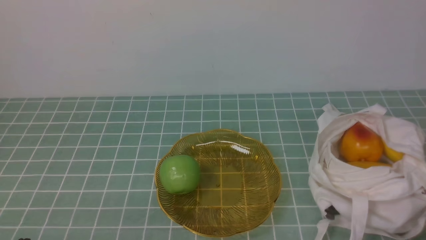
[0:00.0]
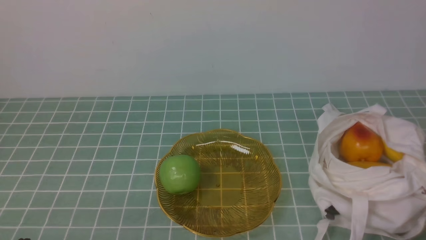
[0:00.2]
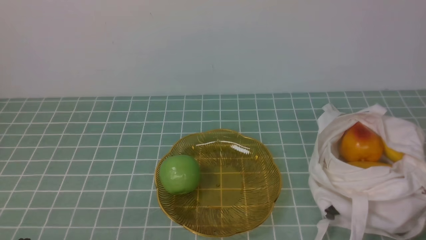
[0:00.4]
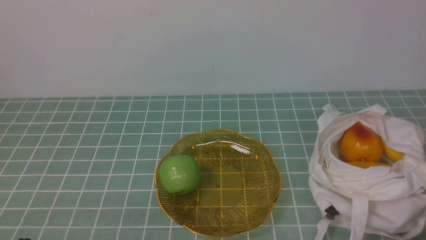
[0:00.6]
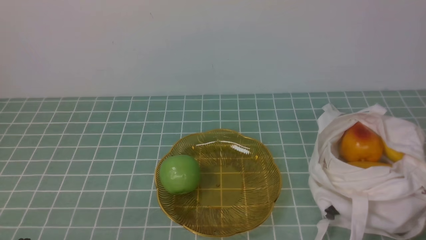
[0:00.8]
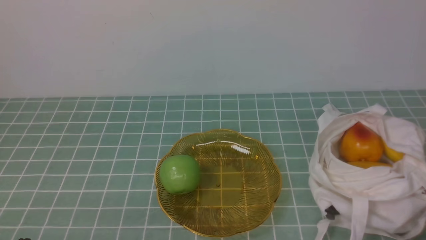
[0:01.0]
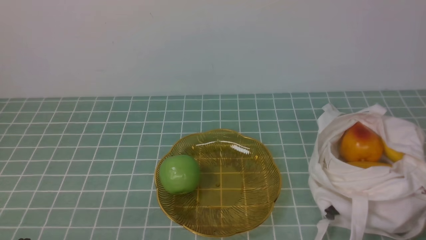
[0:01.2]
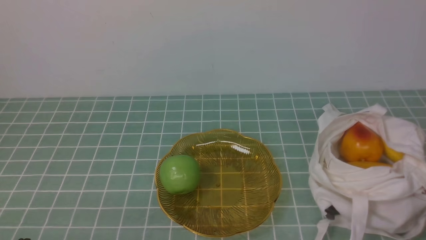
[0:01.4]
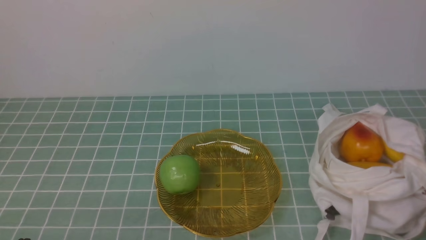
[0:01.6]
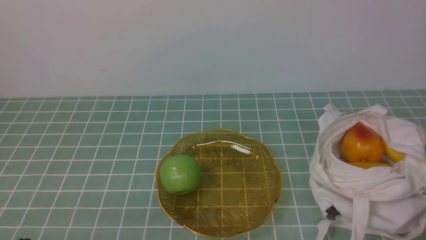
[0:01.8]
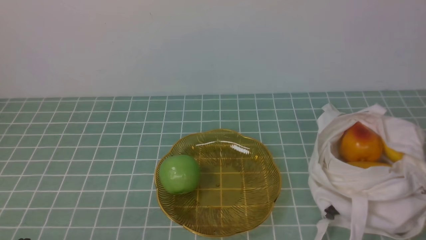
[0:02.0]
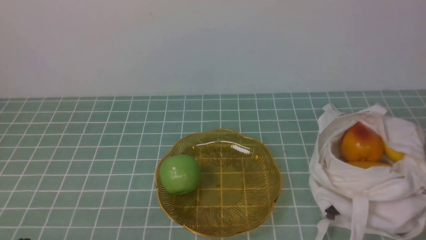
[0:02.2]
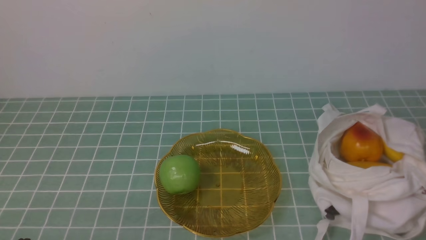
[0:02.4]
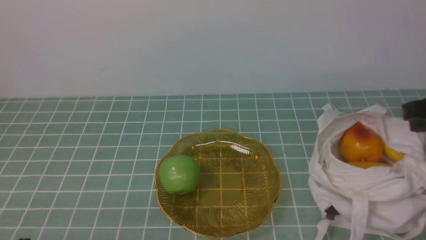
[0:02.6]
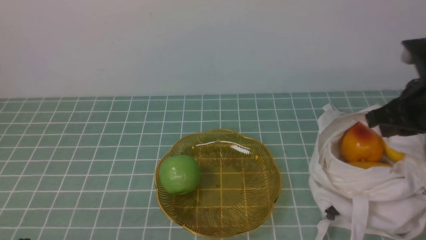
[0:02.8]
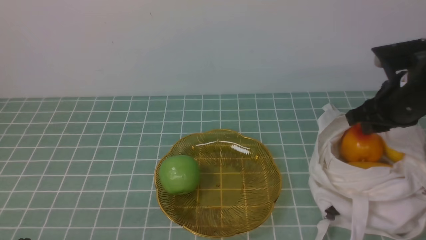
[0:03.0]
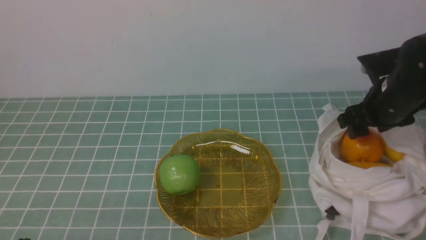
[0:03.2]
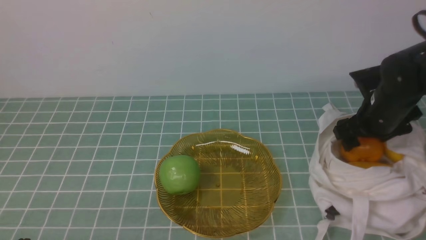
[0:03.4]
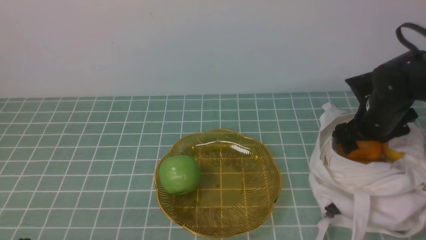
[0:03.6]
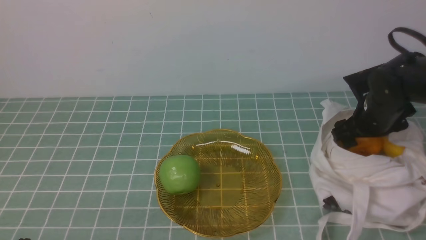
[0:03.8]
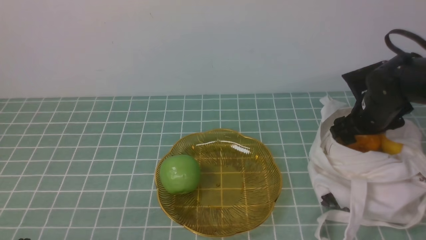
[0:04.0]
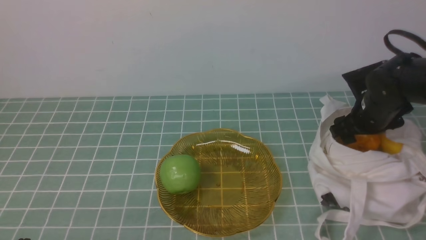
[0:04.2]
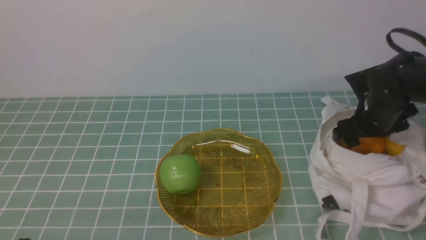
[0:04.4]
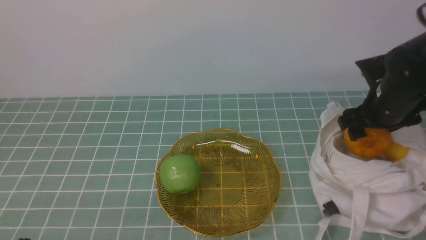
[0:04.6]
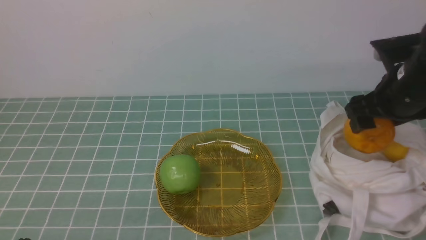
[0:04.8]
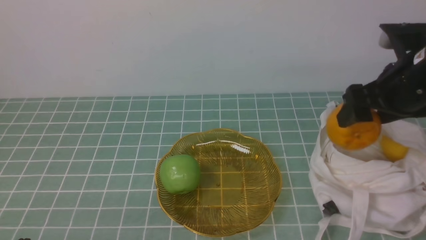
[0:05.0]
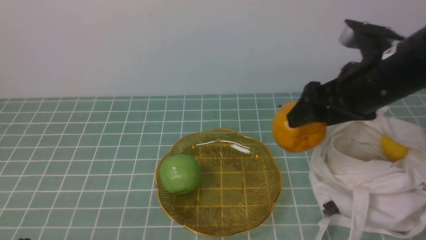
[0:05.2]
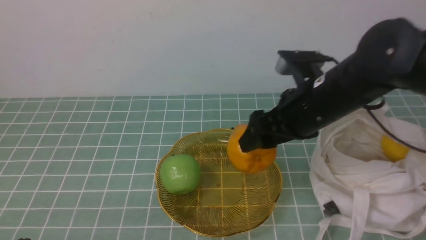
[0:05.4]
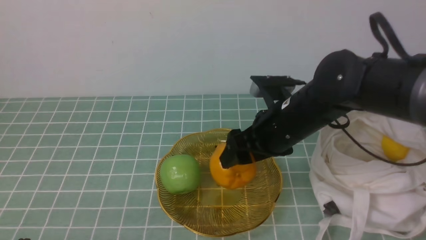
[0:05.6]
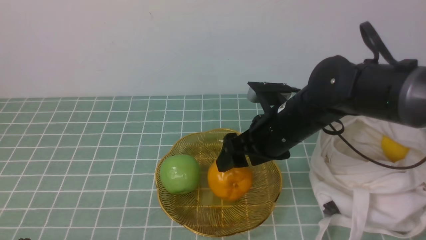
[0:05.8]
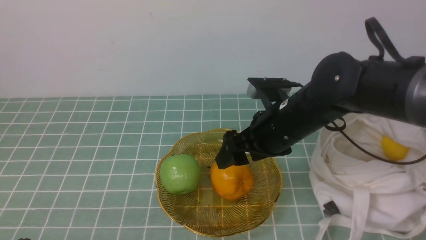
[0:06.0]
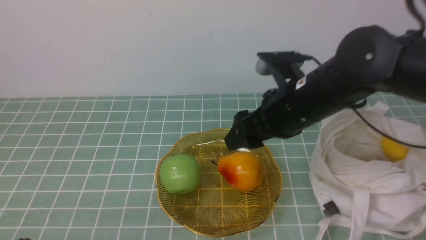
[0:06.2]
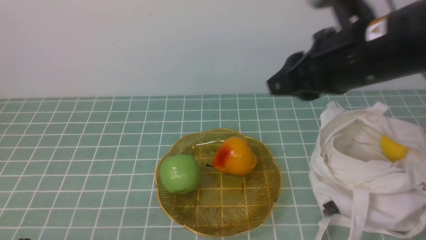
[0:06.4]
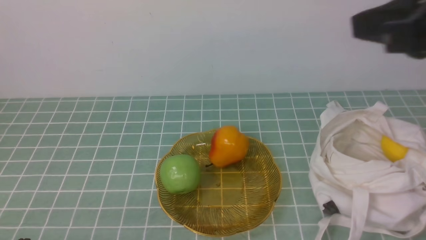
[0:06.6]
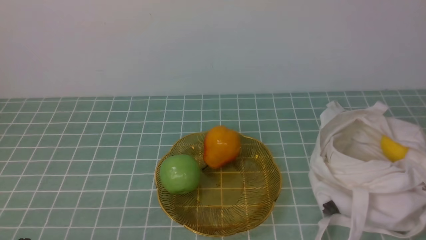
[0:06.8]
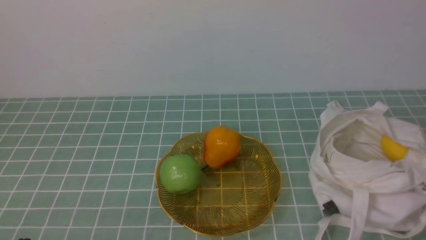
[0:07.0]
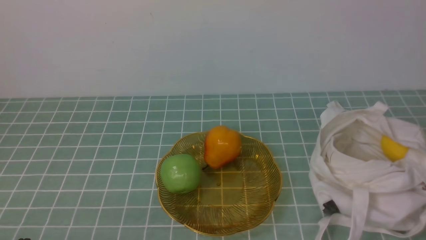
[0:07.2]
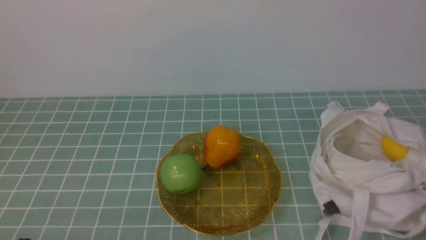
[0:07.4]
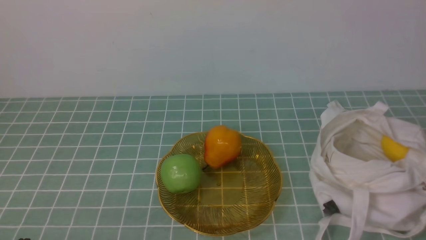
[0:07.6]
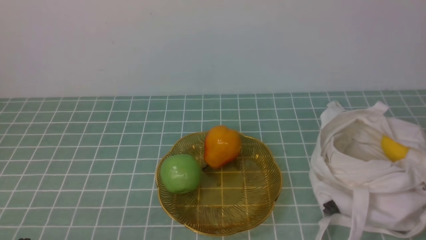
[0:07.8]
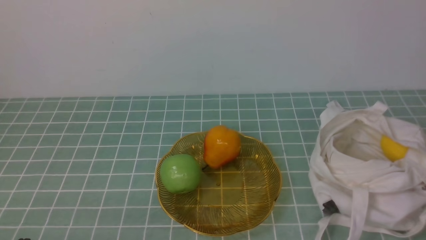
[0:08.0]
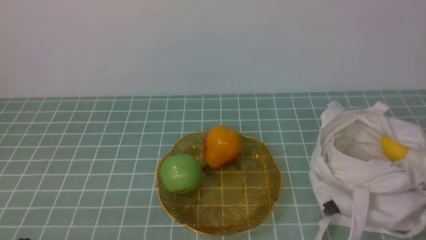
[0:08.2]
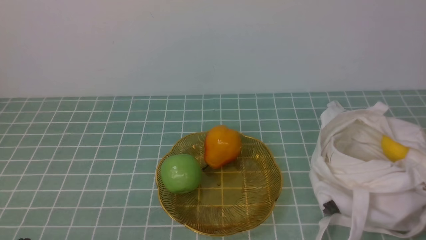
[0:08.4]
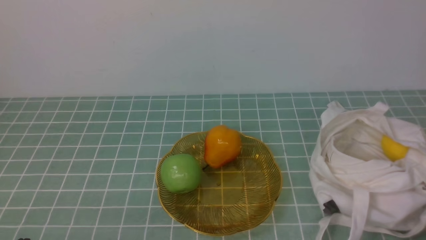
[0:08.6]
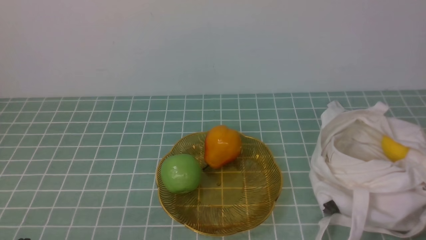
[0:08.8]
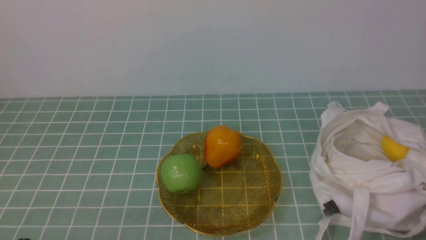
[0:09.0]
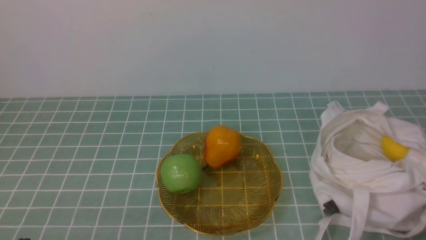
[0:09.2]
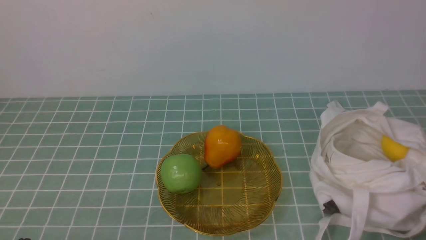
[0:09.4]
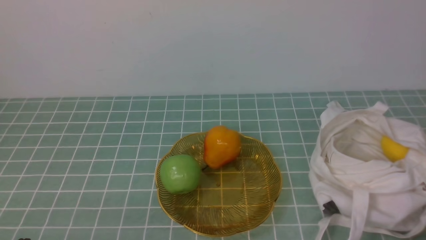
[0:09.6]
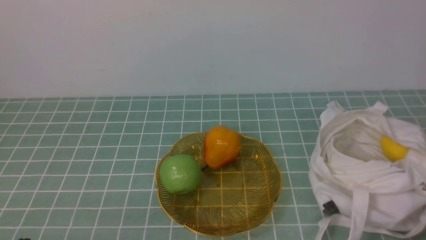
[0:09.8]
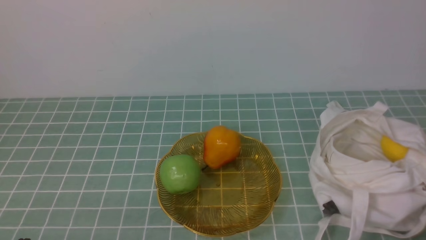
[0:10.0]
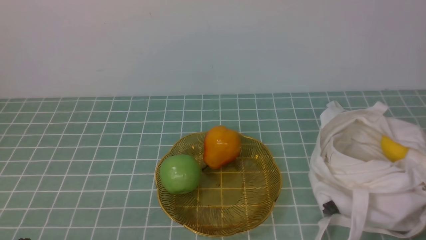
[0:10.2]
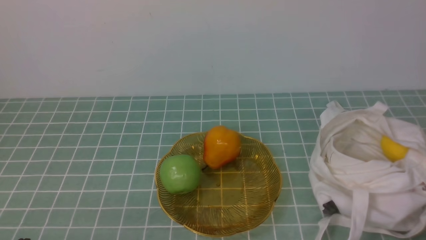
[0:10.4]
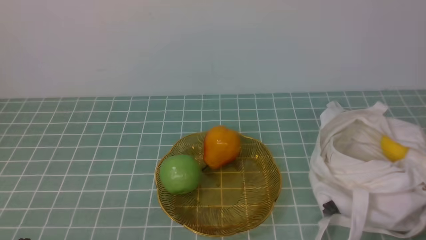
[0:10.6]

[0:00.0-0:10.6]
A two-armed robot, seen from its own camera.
Step, 0:00.0 to 0:04.6: use the right arm to grab a pear from the bag.
Step, 0:04.8 to 0:06.2: use the right arm to put the pear into the empty plate on the left.
0:01.6 to 0:03.0: The right gripper is displaced forward by approximately 25 cm, and opens.
0:03.0 to 0:04.6: The right gripper goes downward and returns, roughly 10 cm each way, and opens up.
0:04.6 to 0:06.0: The right gripper goes about 15 cm to the left.
0:06.0 to 0:07.6: The right gripper shifts approximately 30 cm backward and to the right, and closes its fingers.
0:09.0 to 0:10.6: Both grippers stay about where they are.

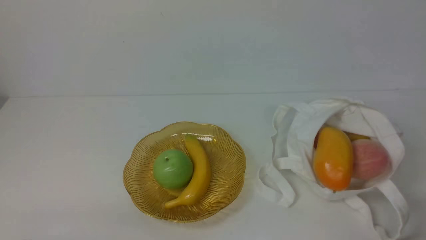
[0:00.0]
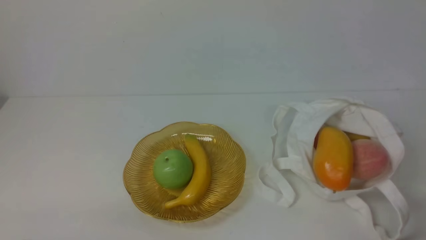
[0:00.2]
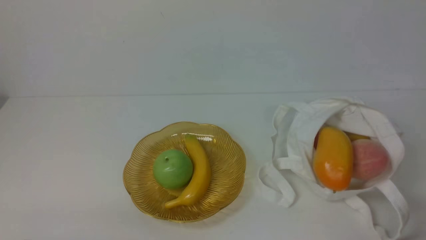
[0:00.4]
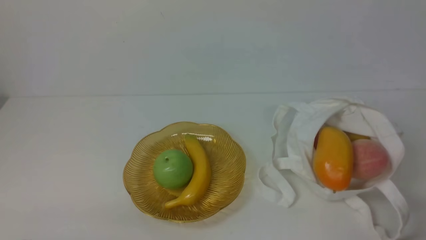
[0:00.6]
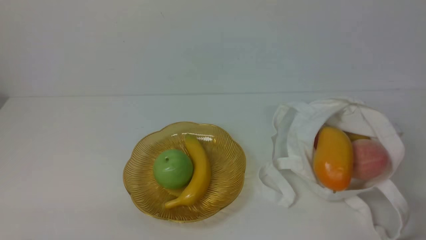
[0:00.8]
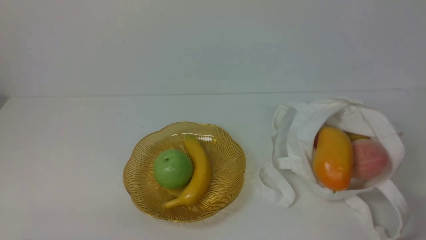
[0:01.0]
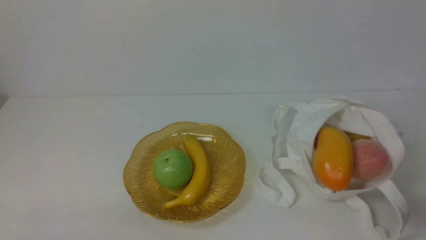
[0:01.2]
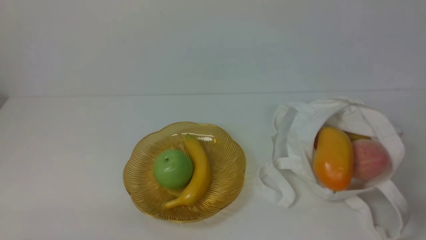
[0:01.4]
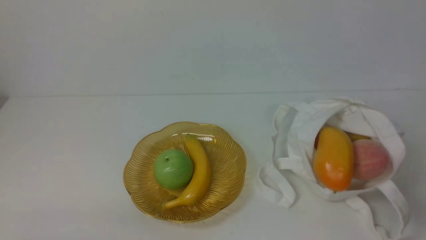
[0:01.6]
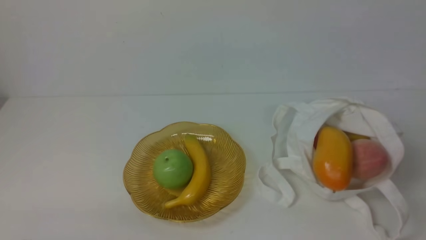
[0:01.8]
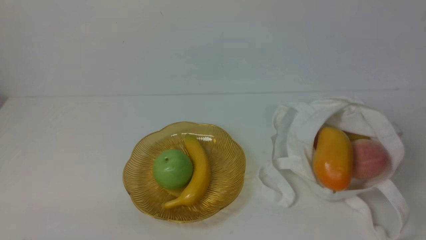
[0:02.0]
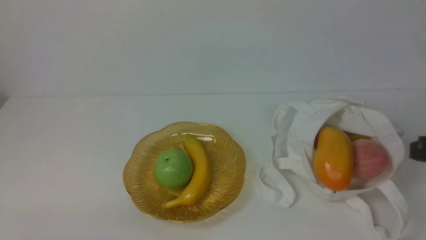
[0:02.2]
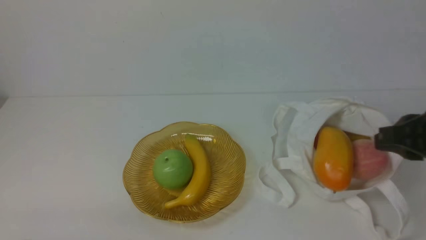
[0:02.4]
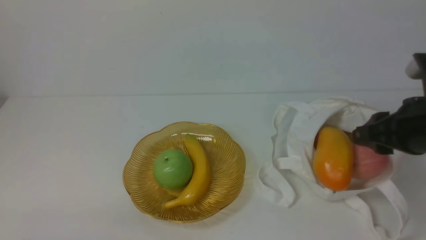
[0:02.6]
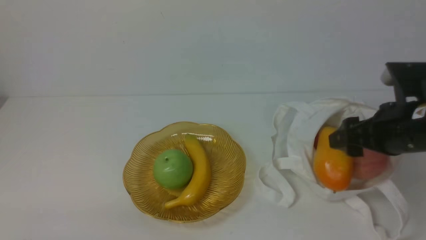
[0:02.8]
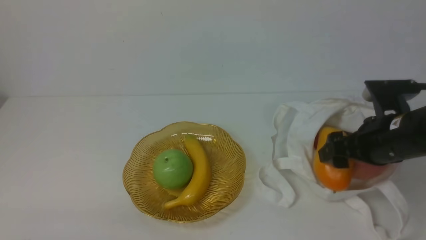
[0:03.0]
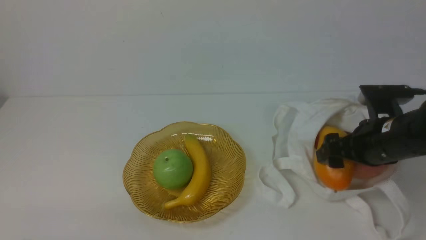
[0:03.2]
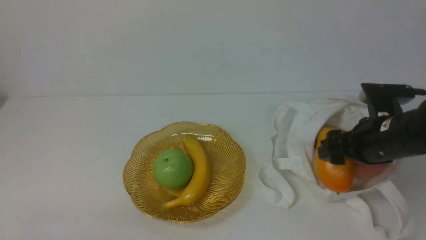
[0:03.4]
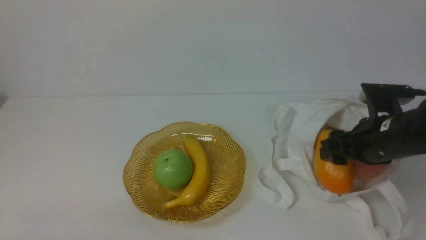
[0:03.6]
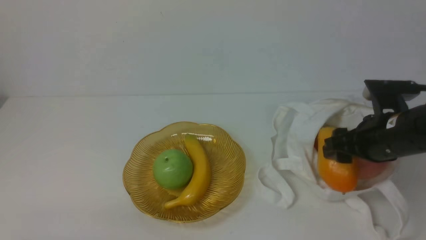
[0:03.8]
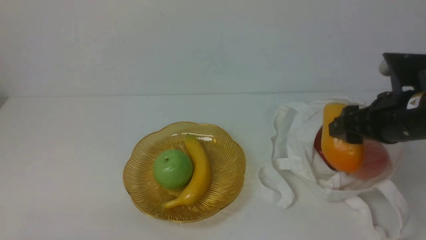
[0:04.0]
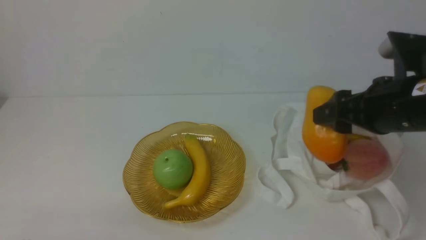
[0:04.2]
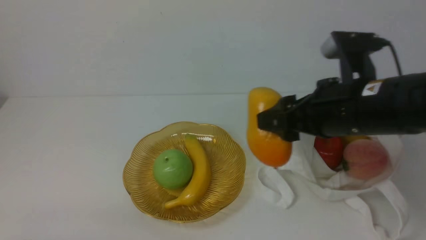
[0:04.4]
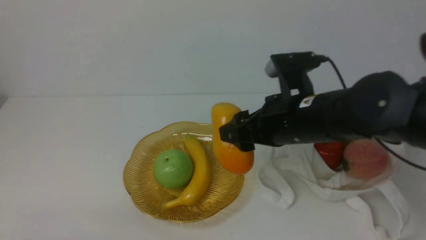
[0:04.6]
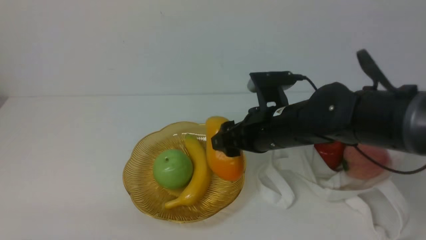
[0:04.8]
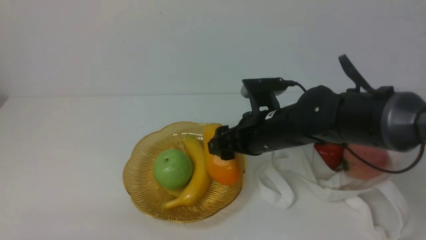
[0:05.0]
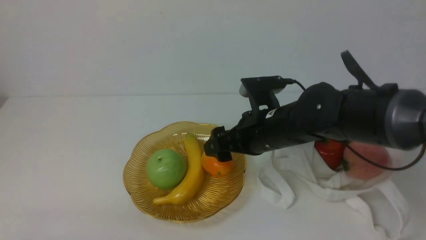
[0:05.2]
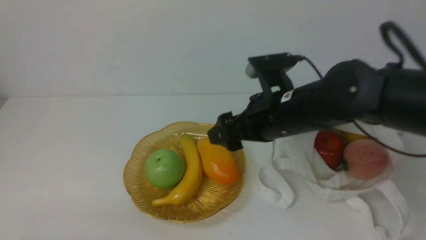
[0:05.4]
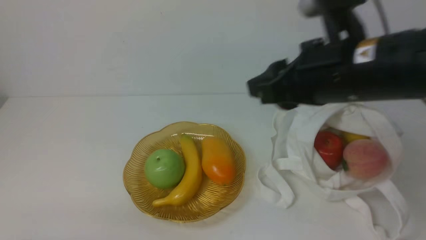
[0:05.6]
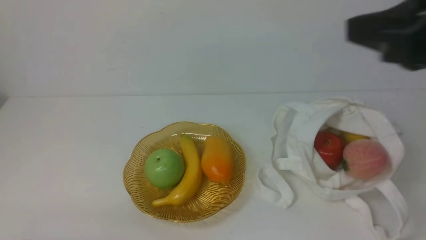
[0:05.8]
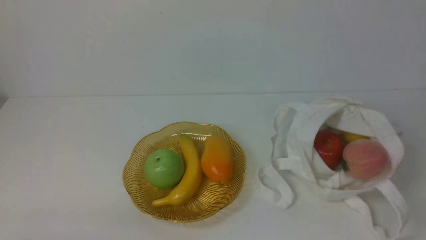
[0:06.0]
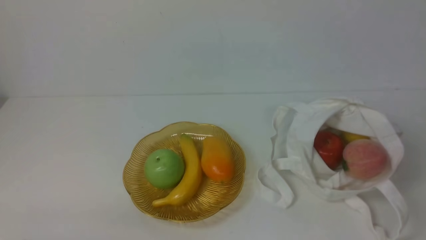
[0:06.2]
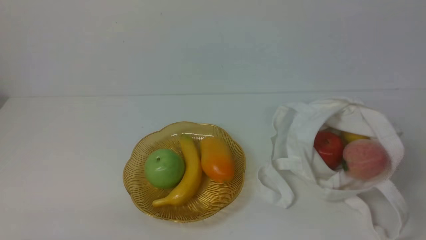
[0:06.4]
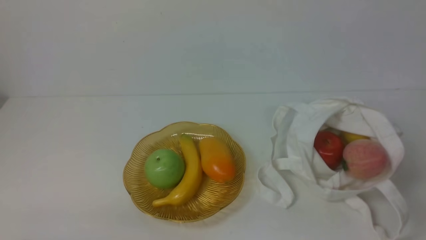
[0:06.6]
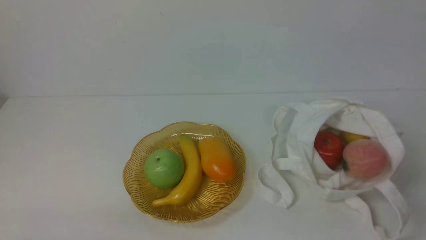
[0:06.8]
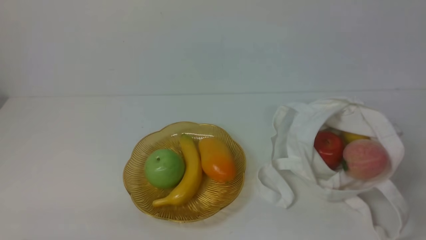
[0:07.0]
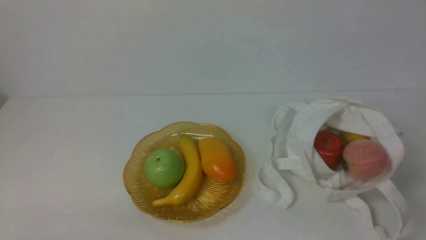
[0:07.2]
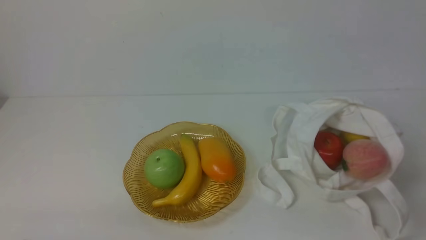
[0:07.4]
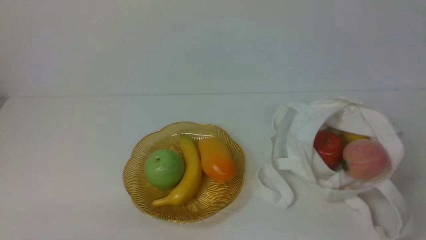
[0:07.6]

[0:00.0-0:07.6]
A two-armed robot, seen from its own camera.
Step, 0:00.0 to 0:03.6: use the right arm to grab a mango from the bag.
Step, 0:03.8 to 0:05.4: use the right arm to put the mango into the empty plate on the left.
0:01.6 to 0:03.0: The right gripper shifts approximately 20 cm forward, and opens.
0:03.0 to 0:04.6: The right gripper shifts about 15 cm to the left.
0:04.6 to 0:06.0: The right gripper is displaced backward, to the right and upward by approximately 30 cm, and closes up.
